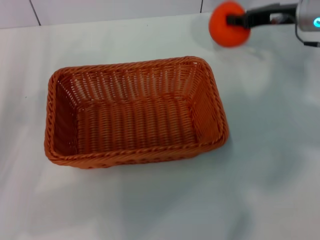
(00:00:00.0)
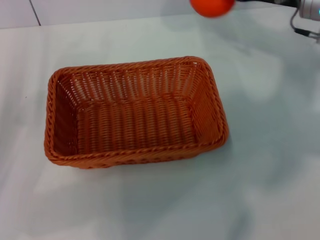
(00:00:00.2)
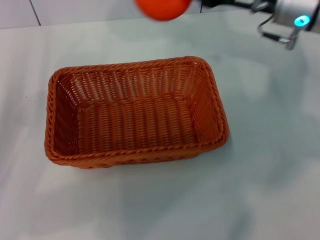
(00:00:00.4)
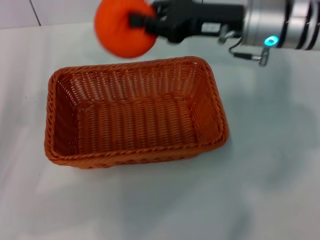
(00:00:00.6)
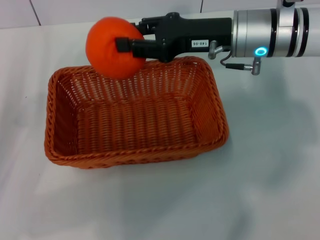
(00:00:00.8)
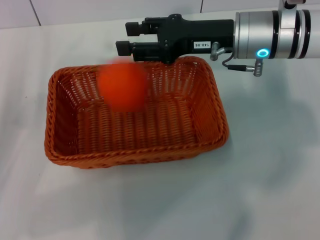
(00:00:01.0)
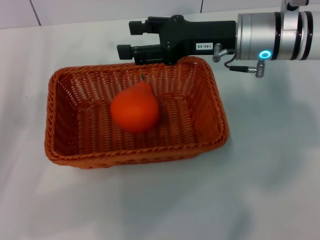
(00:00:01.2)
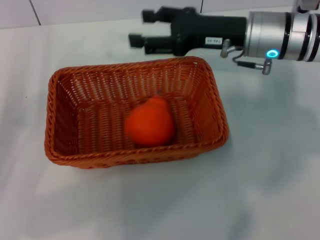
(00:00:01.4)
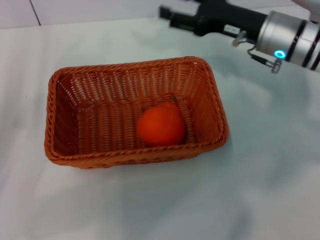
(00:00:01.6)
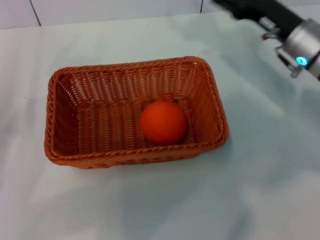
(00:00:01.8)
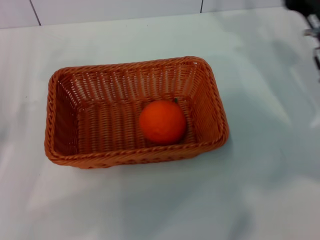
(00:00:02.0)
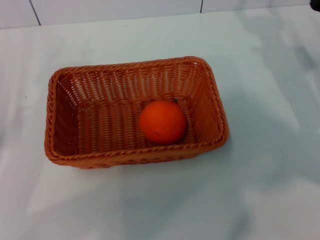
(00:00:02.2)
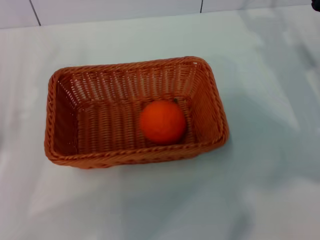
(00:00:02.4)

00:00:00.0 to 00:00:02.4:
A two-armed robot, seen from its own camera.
Task of the whole recording: the left gripper pick up the yellow basket and place it horizontally in the middle of the table, the right gripper pick up the orange and place it into the yellow basket.
Step, 00:00:00.0 to 00:00:01.0: Place the orange into the light basket with the right gripper.
00:00:00.0 to 00:00:01.2: The right gripper travels to the left and backward by approximately 10 cm, and opens its fingers.
00:00:01.2 to 00:00:02.4: The right gripper travels to the right and downward by about 15 cm, and opens.
